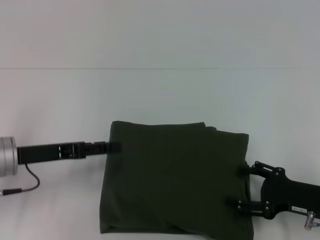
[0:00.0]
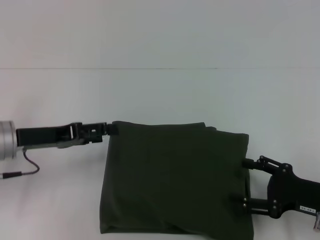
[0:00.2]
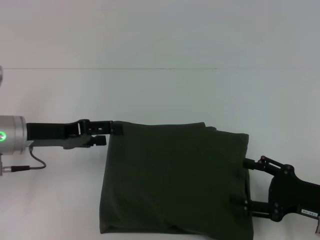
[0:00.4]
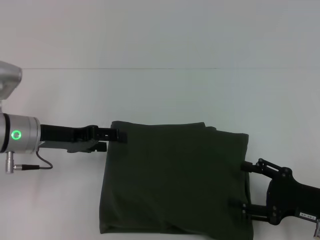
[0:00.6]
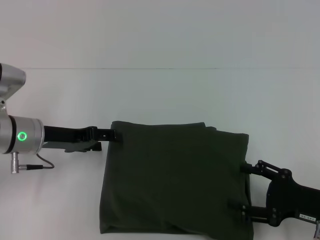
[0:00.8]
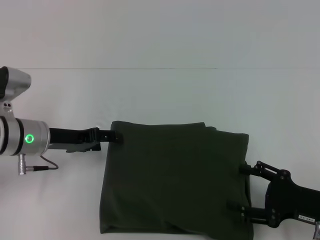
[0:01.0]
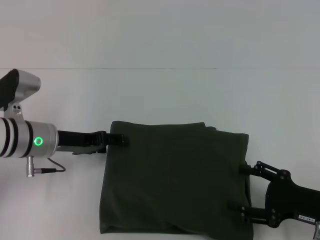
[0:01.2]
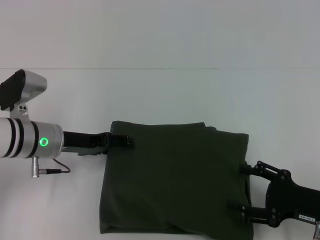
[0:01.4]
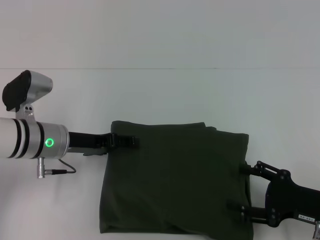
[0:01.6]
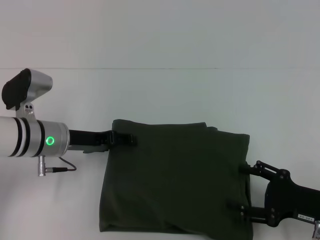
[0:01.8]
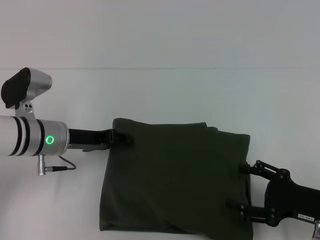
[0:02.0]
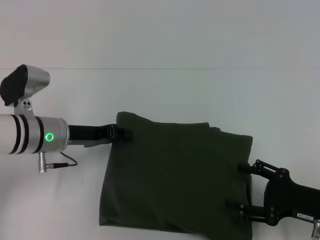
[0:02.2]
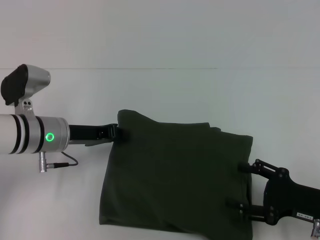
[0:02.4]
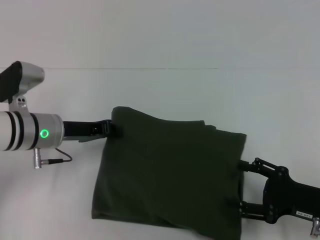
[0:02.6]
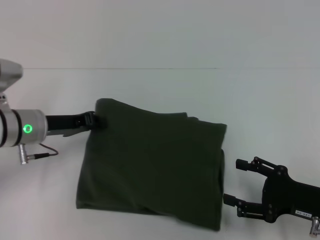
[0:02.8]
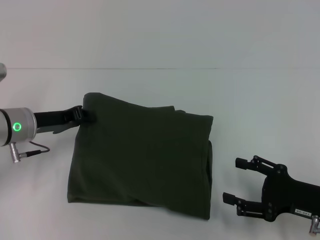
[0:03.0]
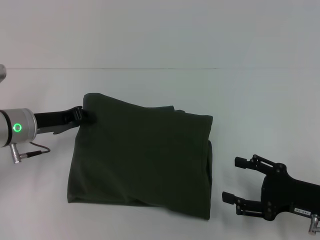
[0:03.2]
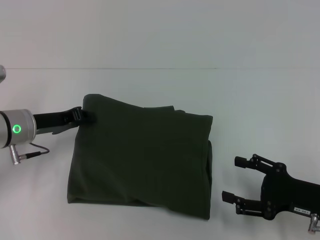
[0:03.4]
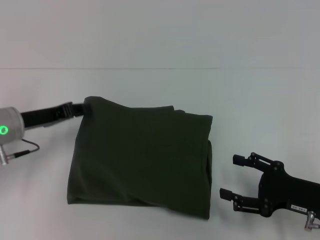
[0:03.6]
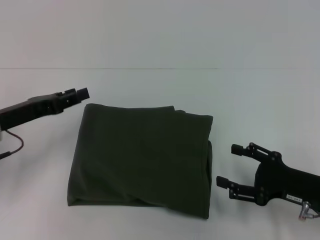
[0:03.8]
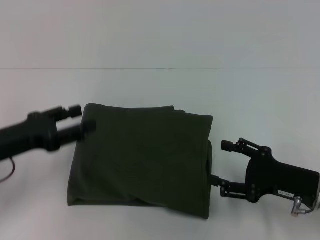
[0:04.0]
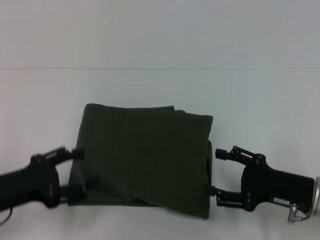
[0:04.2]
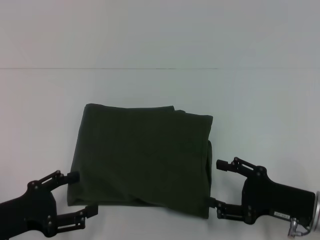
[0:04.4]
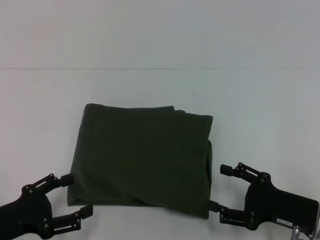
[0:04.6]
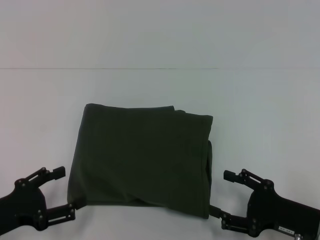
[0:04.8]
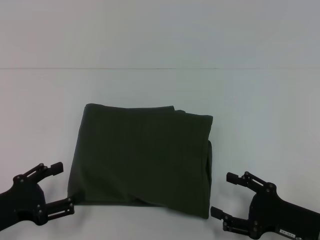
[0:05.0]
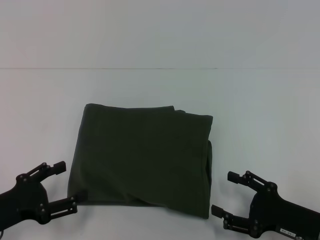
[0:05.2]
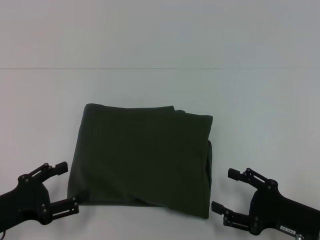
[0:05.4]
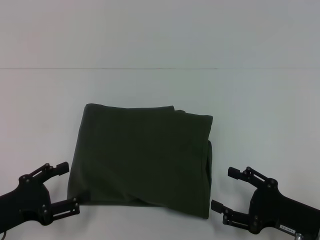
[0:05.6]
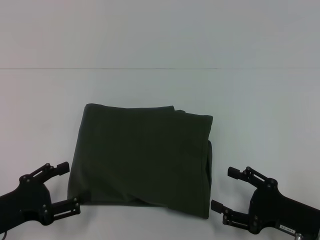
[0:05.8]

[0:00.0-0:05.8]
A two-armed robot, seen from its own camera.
0:00.0 to 0:01.4: The left gripper travels forward by some 5 cm.
0:01.4 to 0:02.8: The left gripper closes up.
0:02.8 to 0:04.4: The left gripper is displaced backward by roughly 15 cm, and opens.
0:04.4 to 0:05.8: The grippers stay close to where they were, moving slightly.

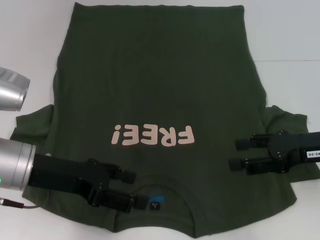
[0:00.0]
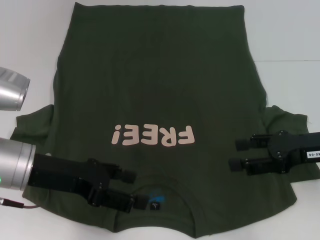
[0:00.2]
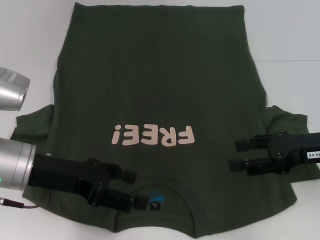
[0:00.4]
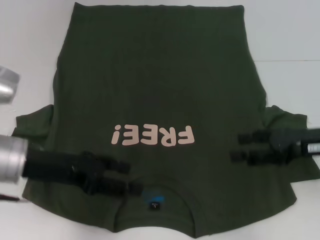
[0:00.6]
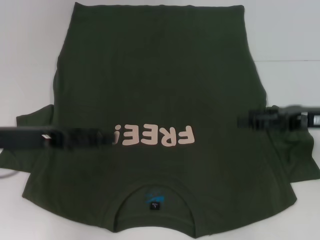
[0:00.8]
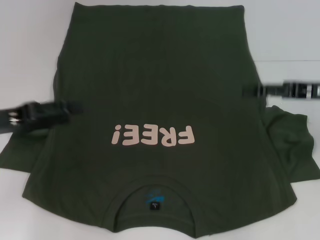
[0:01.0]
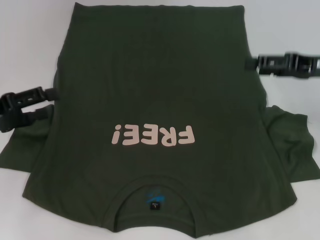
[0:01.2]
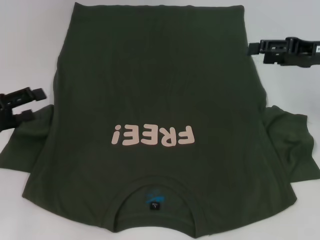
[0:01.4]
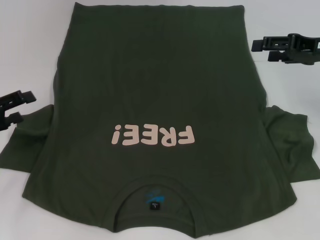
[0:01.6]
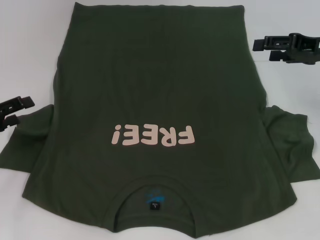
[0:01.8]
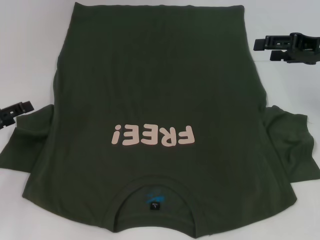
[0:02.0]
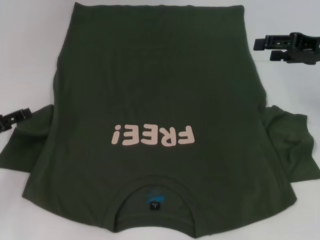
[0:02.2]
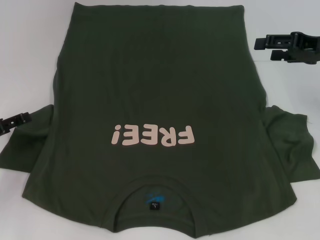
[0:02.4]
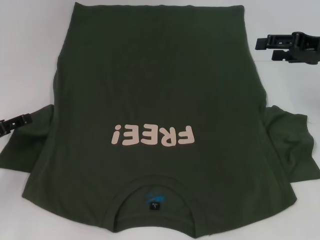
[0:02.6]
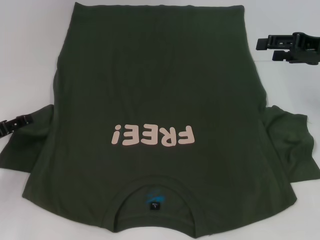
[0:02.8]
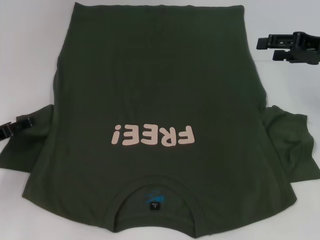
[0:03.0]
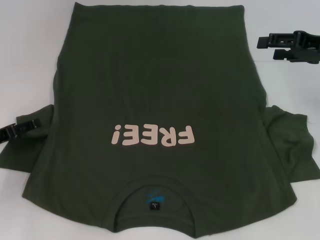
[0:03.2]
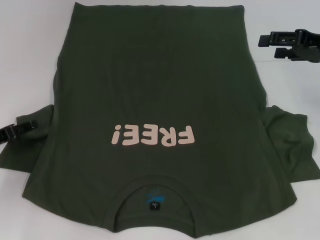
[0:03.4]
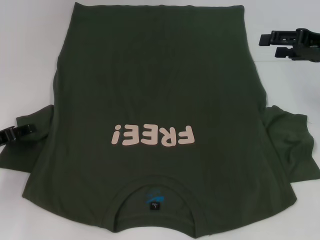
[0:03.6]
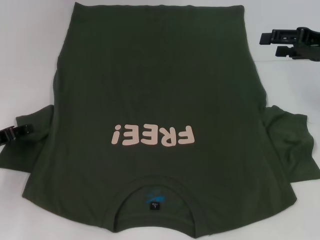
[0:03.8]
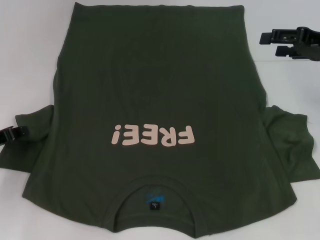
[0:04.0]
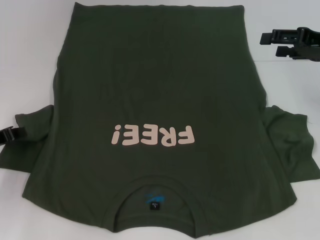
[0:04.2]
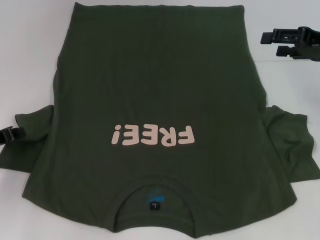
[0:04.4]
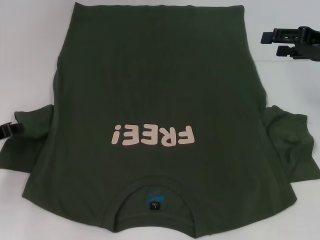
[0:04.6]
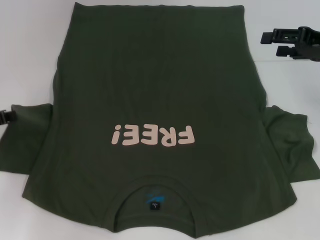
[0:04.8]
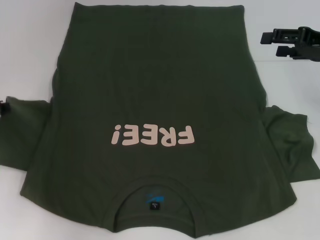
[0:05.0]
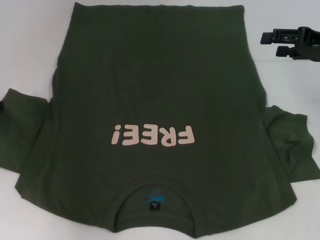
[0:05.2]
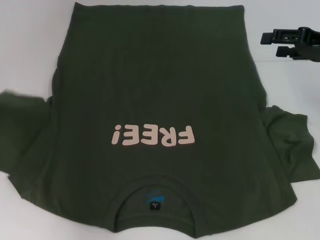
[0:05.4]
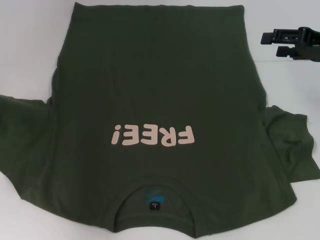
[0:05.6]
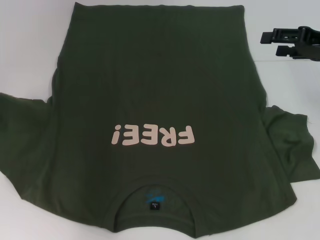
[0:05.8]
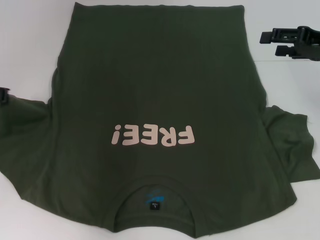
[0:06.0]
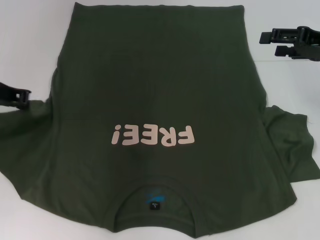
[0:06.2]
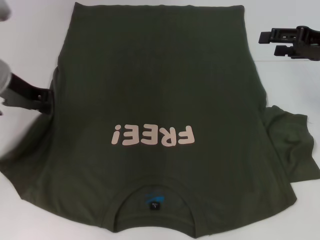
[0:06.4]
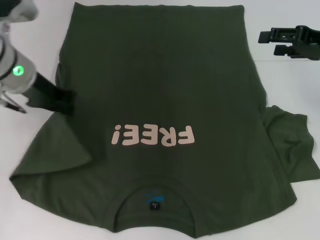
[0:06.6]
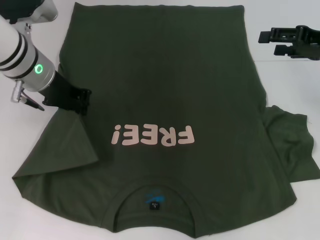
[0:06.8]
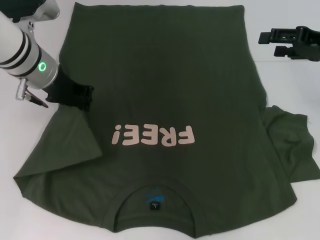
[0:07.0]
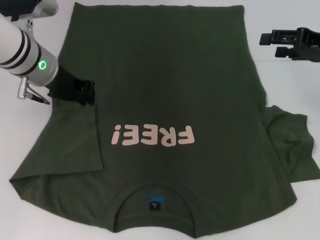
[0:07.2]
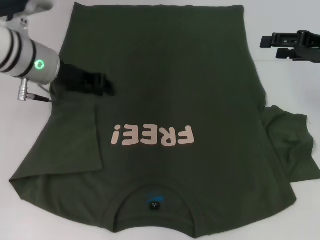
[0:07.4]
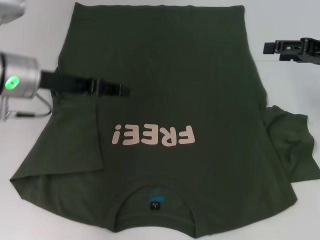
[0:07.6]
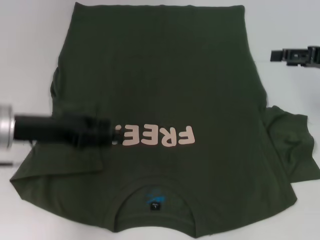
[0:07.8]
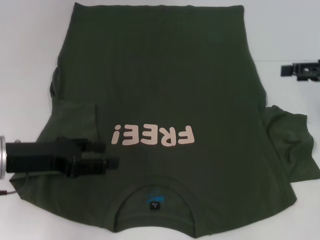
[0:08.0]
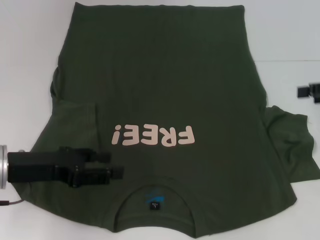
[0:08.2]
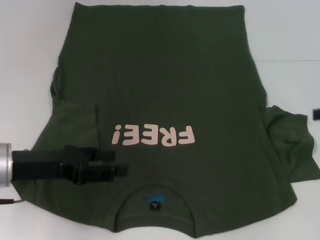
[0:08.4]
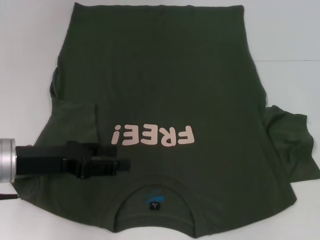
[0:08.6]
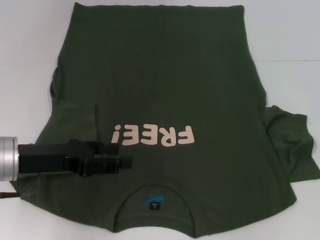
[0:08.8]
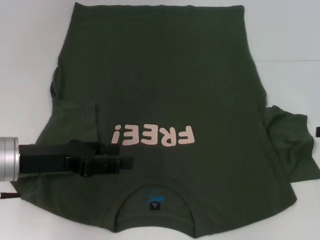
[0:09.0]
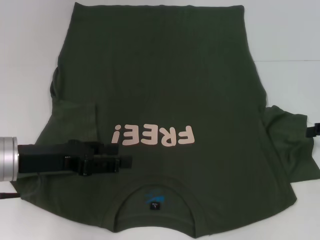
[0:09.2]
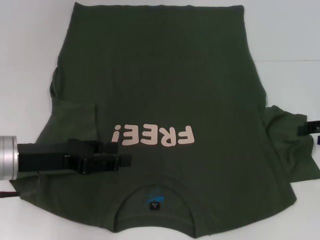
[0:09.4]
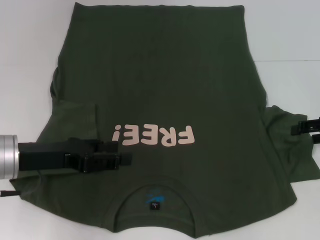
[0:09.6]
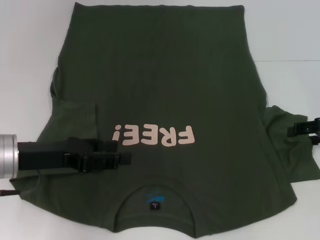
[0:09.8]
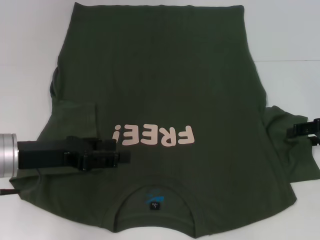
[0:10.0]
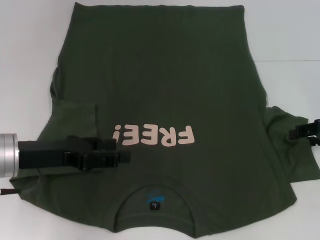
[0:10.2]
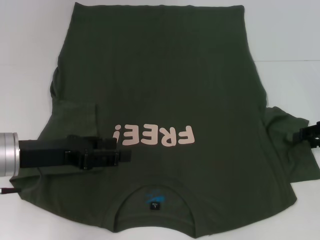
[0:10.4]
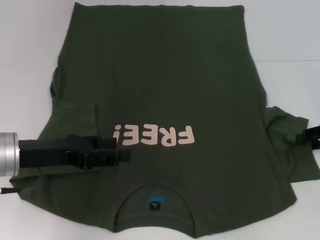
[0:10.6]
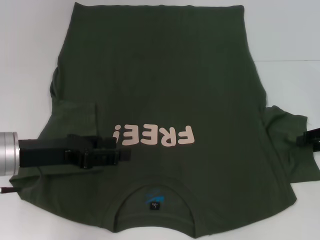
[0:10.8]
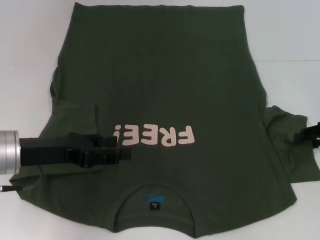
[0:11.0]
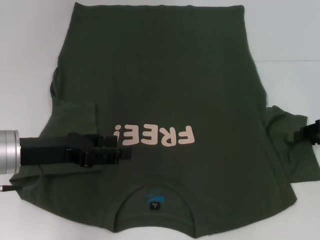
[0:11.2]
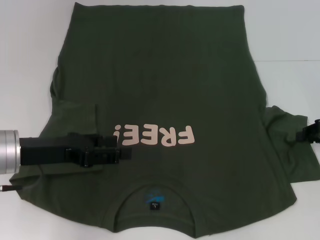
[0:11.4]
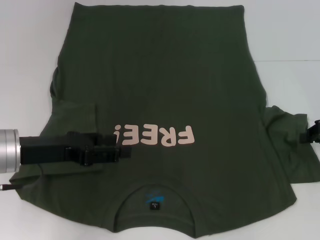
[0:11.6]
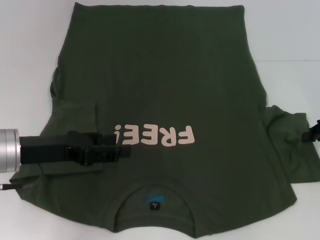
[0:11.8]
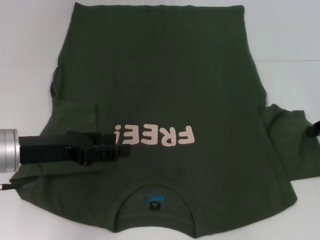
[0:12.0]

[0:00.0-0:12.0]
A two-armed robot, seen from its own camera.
Step, 0:00.0 to 0:11.0: Fold the bottom left sleeve with your left hand.
0:00.0 to 0:01.6: The right gripper shifts about 10 cm forward and upward. Meanwhile the left gripper is displaced to the left by roughly 15 cm.
0:01.6 to 0:03.0: The left gripper moves downward, about 5 cm.
0:04.4 to 0:06.0: The left gripper shifts approximately 15 cm upward and forward.
0:06.0 to 0:07.6: The left gripper moves to the right, some 10 cm, and opens its fingers.
0:07.6 to 0:09.0: The right gripper moves to the right, backward and downward, about 10 cm. Meanwhile the left gripper goes about 10 cm backward and downward, and opens.
0:09.0 to 0:10.4: There are only small adjustments of the grippers.
0:10.4 to 0:12.0: The right gripper closes its fingers.

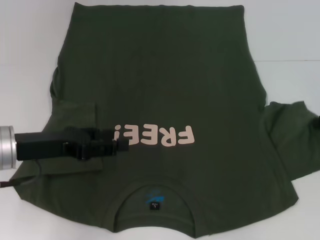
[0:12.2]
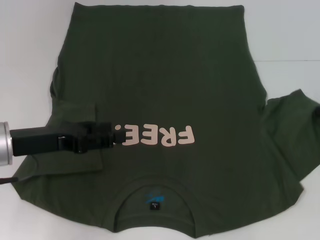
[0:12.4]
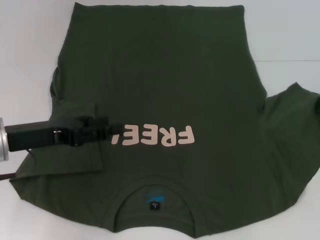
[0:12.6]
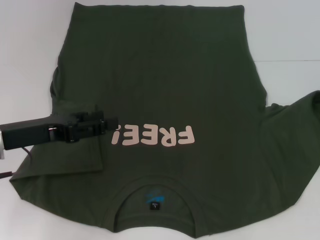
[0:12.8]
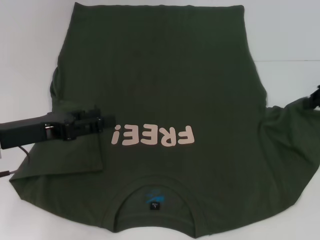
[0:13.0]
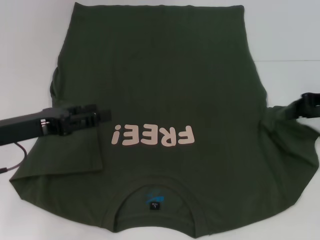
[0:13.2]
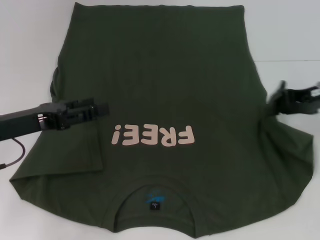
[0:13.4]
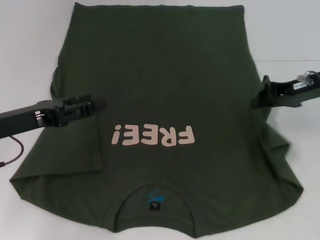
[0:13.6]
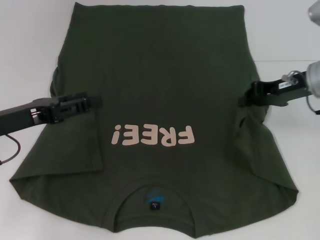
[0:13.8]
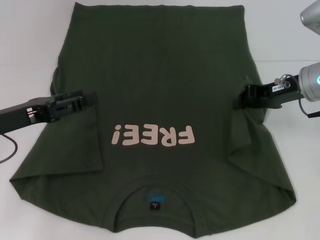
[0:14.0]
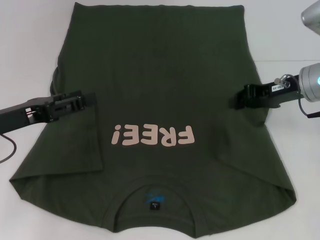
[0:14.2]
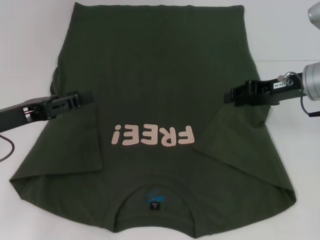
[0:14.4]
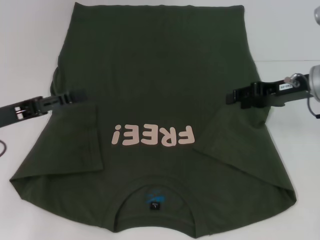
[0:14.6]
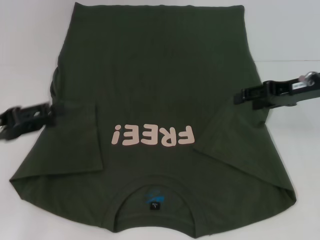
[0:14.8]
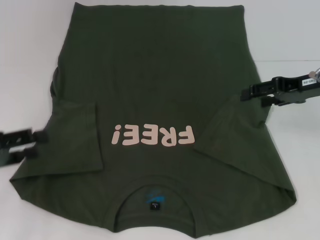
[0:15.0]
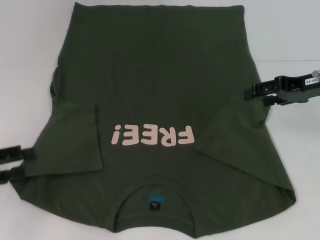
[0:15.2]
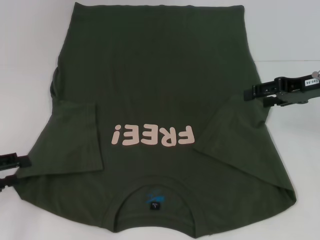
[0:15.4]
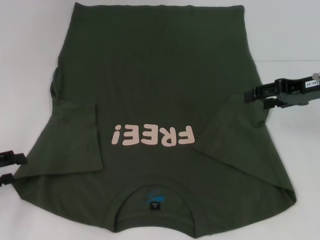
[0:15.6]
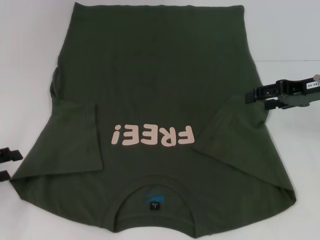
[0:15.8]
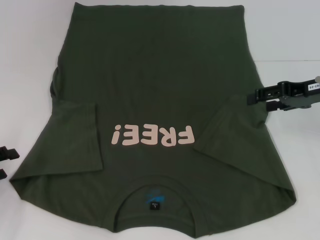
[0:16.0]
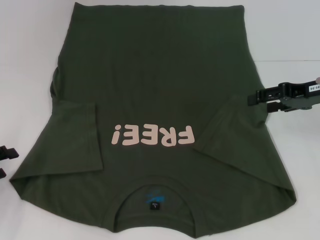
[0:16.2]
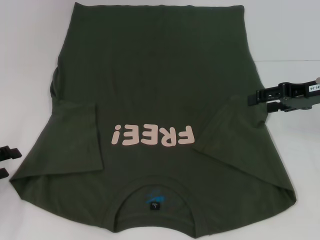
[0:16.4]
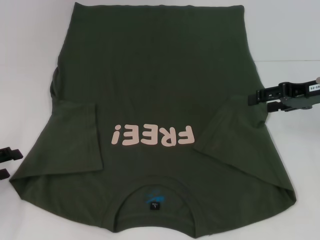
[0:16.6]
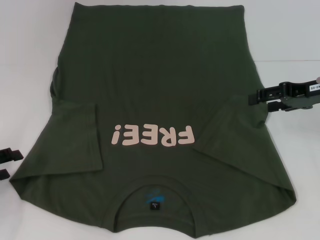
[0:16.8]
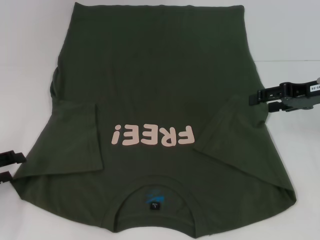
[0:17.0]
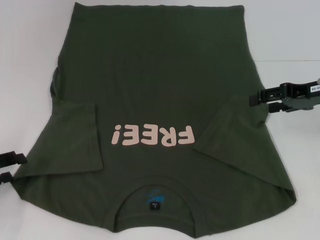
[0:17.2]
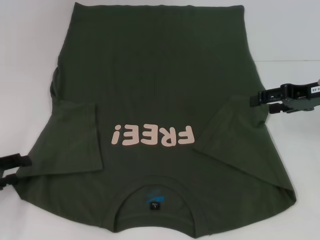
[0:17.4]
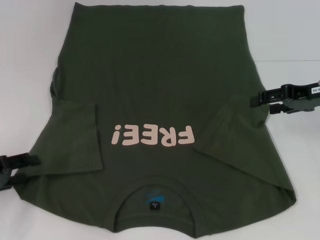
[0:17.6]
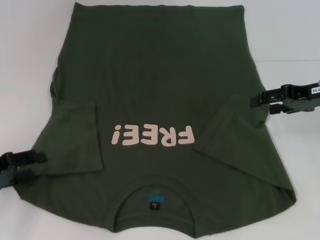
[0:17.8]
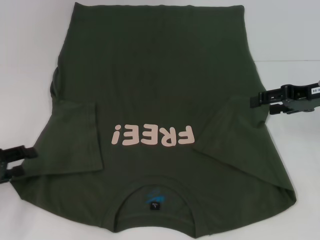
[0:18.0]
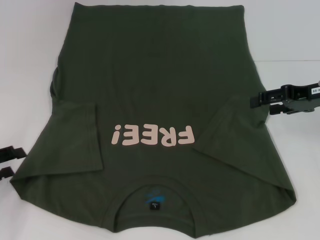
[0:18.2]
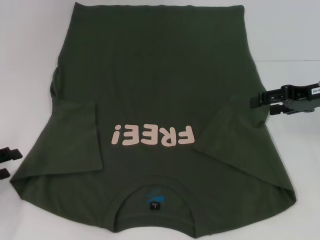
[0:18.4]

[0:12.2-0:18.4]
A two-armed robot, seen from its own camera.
Step, 0:12.2 to 0:16.6: Fold the bottom right sleeve with your right hand.
0:12.2 to 0:13.8: The right gripper is displaced to the left by roughly 10 cm.
0:13.8 to 0:15.4: The left gripper shifts roughly 10 cm to the left and backward. Meanwhile the right gripper opens its fingers.
0:15.4 to 0:18.4: The grippers make only small movements.
